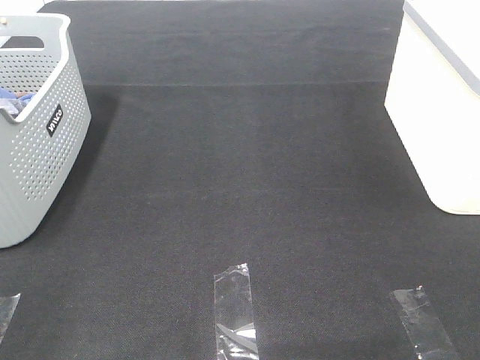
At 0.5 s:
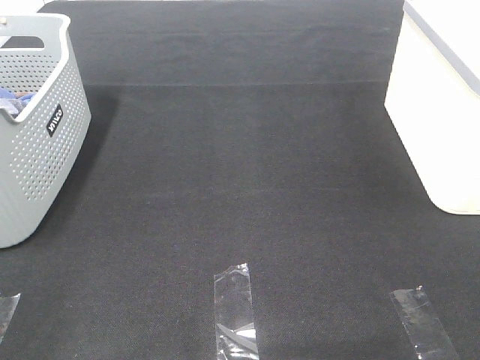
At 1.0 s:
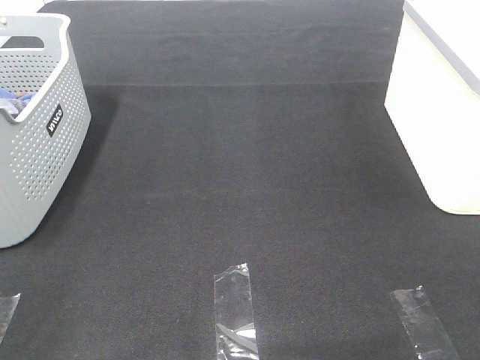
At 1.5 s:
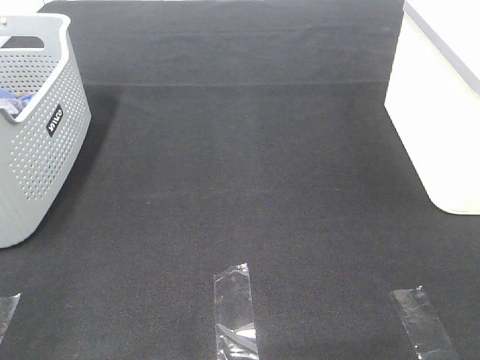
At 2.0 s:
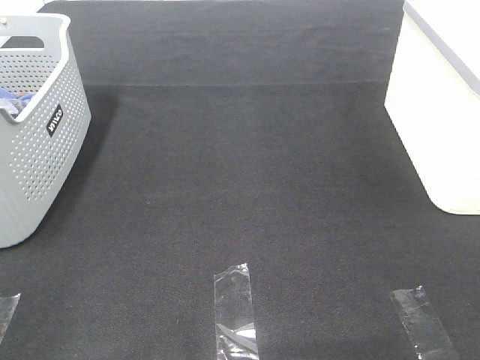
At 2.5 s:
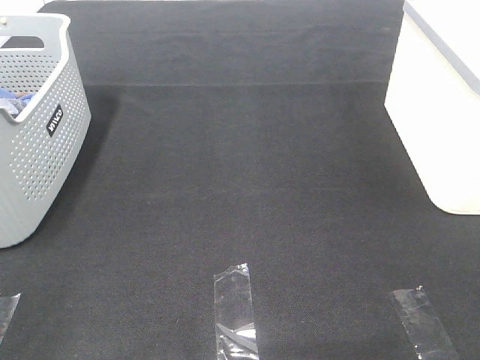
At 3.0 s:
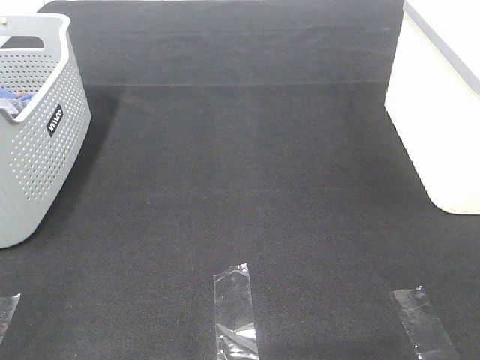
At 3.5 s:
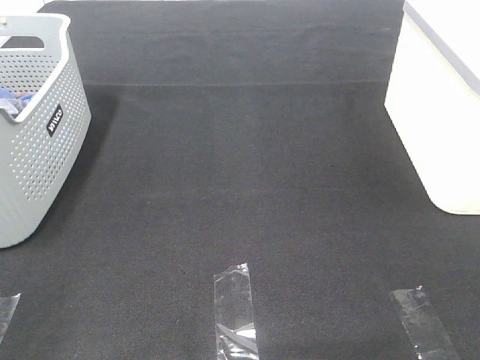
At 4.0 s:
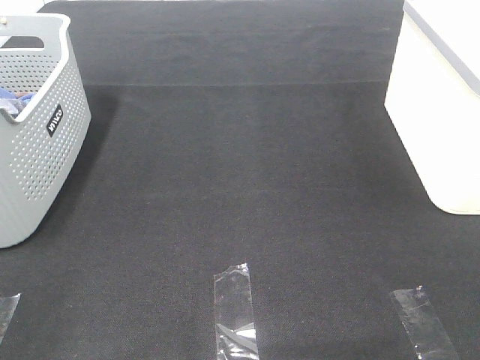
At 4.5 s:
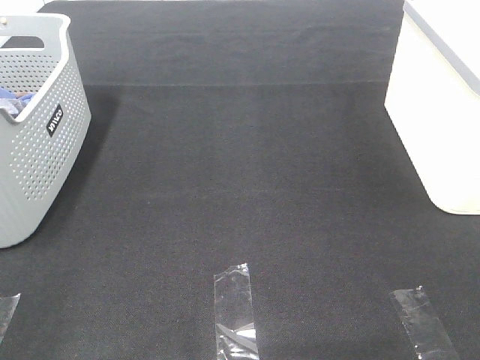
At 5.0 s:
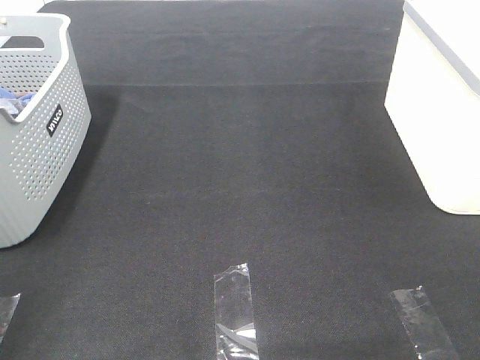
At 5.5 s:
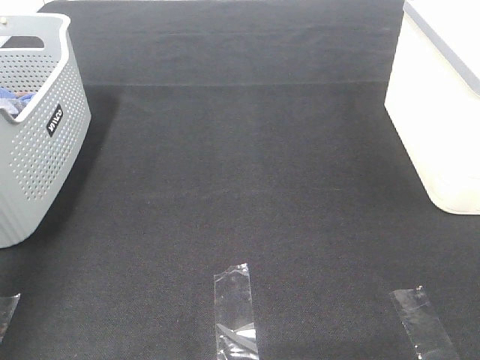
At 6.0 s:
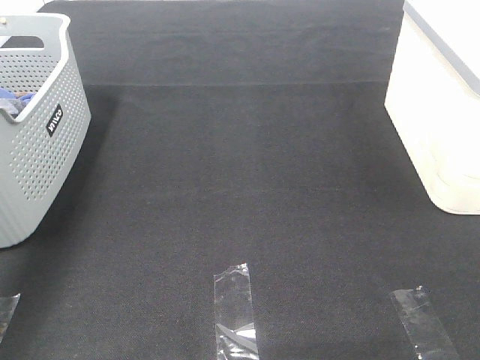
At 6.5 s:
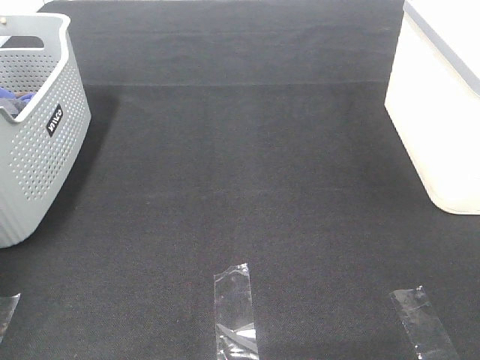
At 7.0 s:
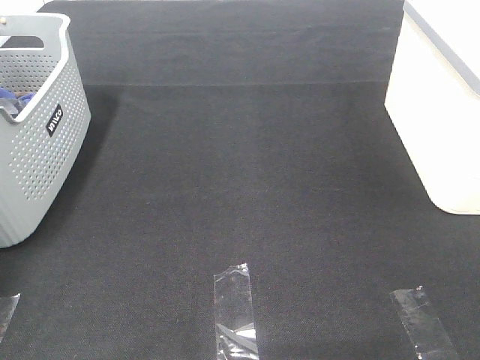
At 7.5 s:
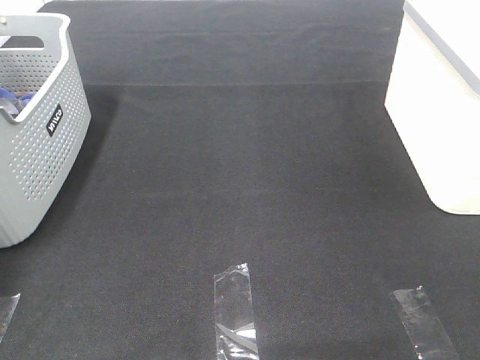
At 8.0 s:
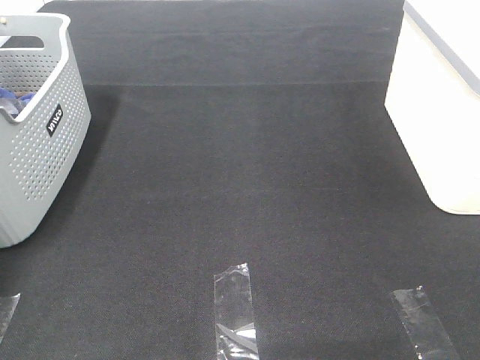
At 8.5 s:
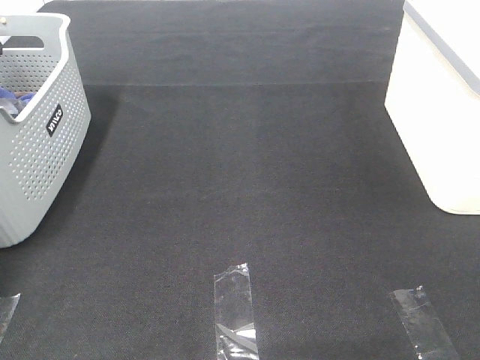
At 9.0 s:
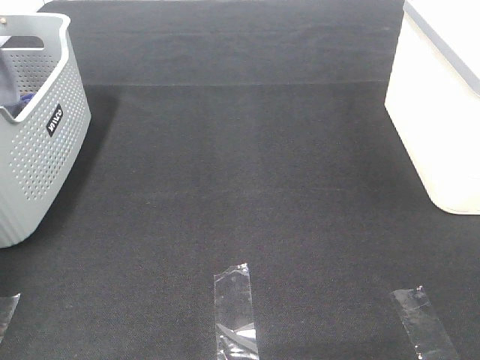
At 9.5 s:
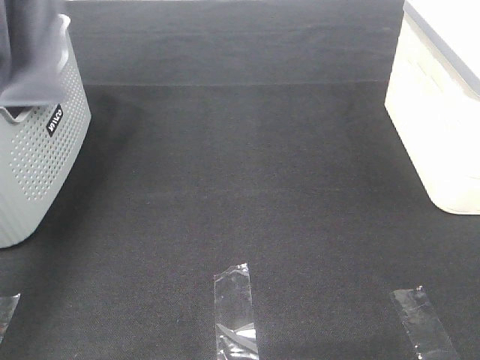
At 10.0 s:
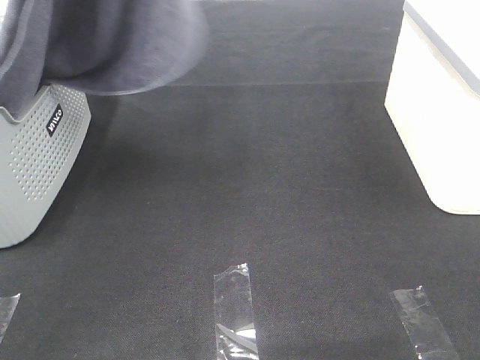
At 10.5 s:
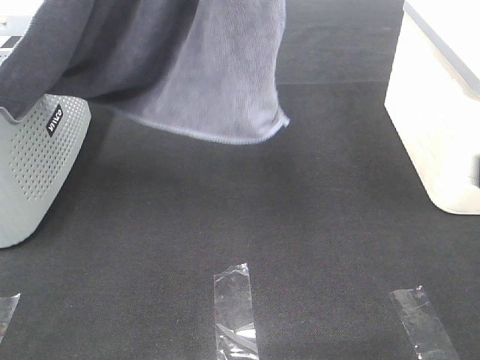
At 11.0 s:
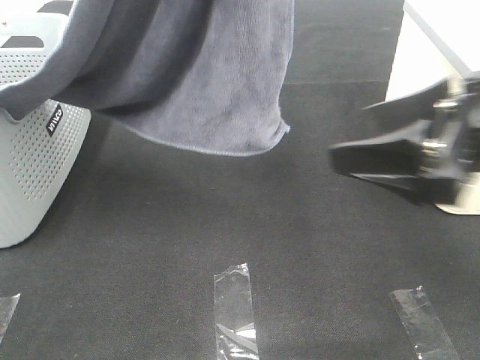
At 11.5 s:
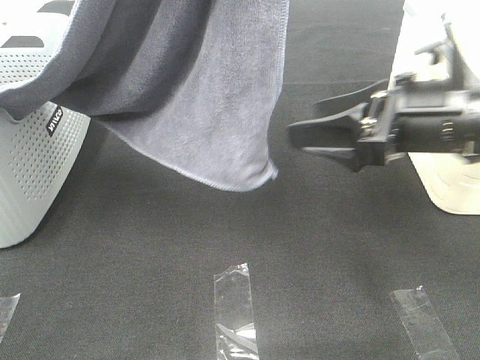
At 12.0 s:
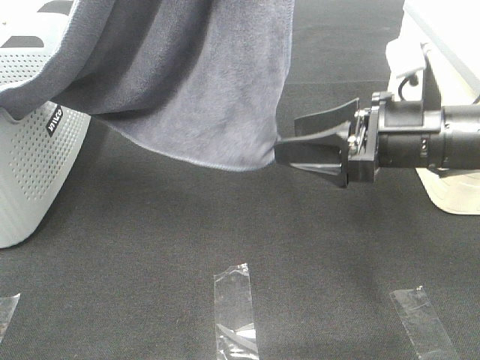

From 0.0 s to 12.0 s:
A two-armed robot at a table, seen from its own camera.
Task of the whole recording: Remove the towel and place it.
From 0.0 s to 4.0 s: The two grippers keep their place.
From 4.0 s to 6.0 s: The left gripper goes some 35 cm forward.
From 6.0 s to 8.0 s: The left gripper goes approximately 20 cm forward, downward and to the left.
From 8.0 s to 10.0 s: The left gripper shifts about 40 cm upward, to the right and backward, and closes its fingers.
From 10.0 s to 12.0 s: The left gripper moves to the right and backward, approximately 10 cm. Meanwhile the right gripper heads forward and downward, covering some 25 cm.

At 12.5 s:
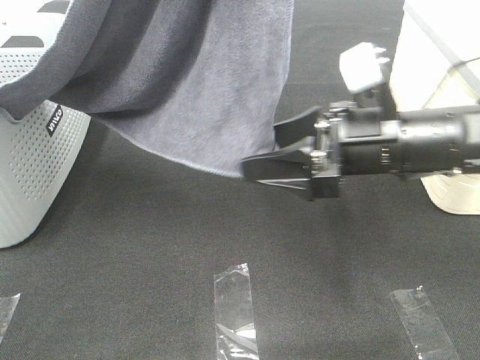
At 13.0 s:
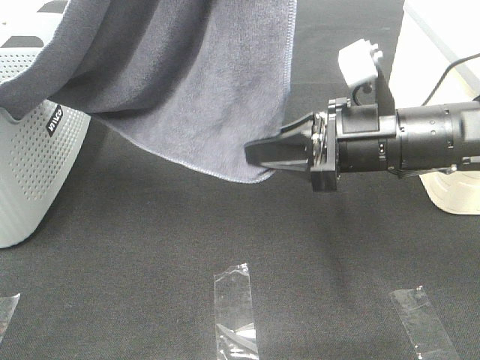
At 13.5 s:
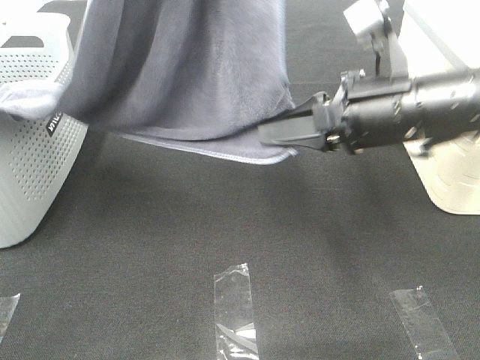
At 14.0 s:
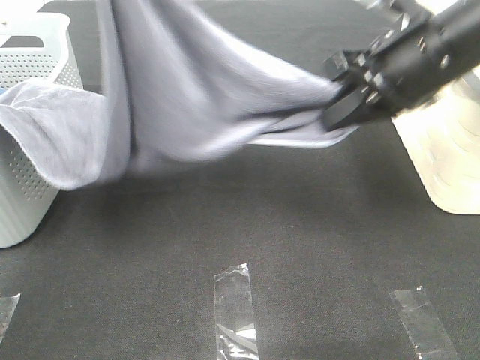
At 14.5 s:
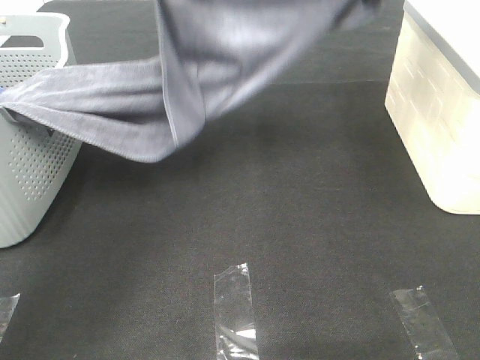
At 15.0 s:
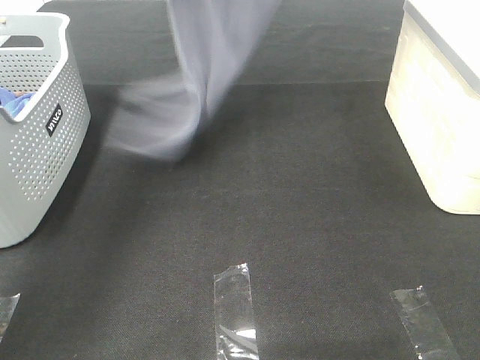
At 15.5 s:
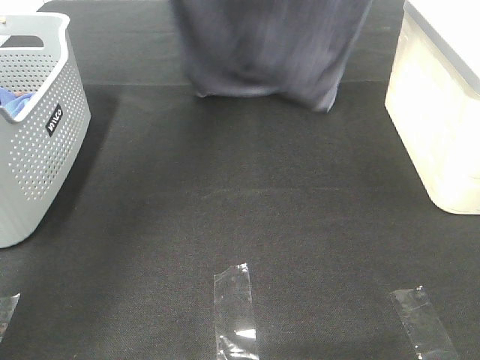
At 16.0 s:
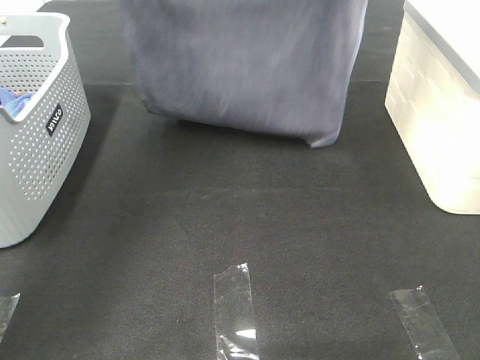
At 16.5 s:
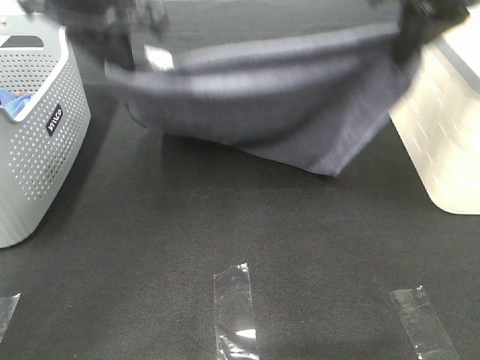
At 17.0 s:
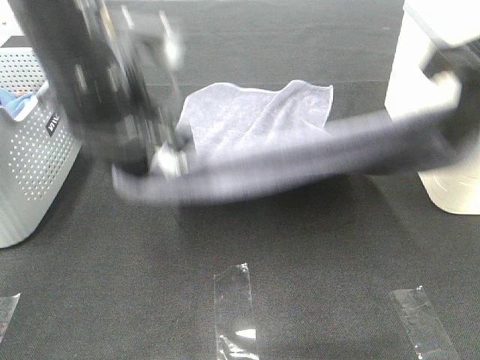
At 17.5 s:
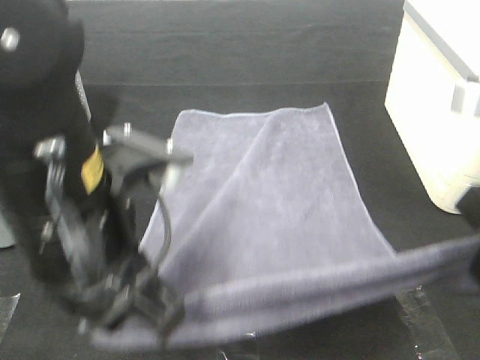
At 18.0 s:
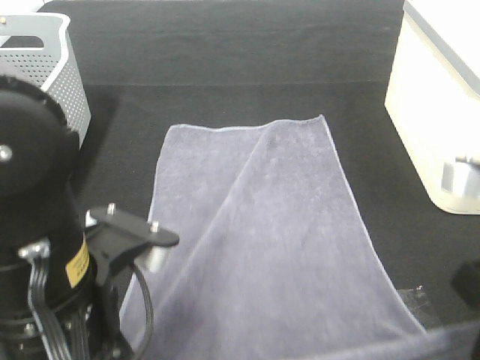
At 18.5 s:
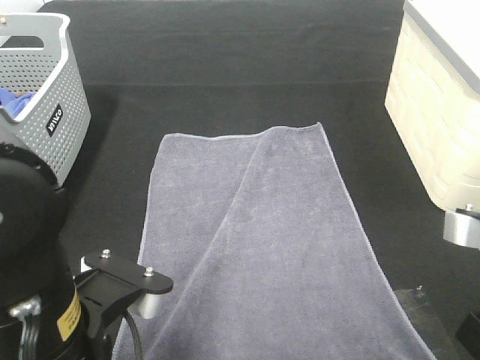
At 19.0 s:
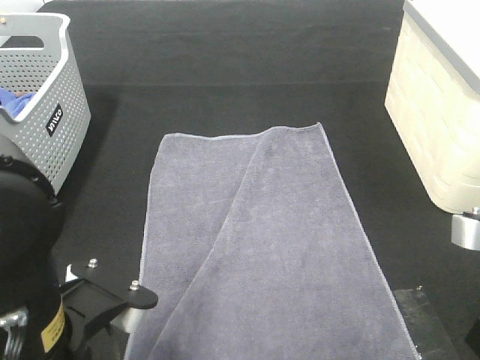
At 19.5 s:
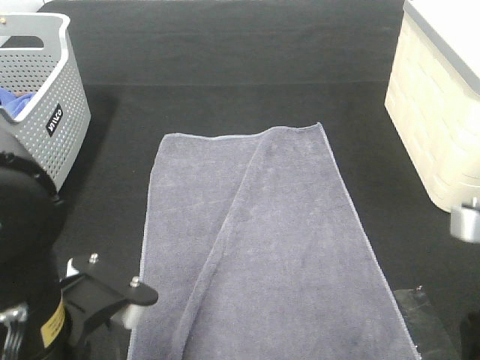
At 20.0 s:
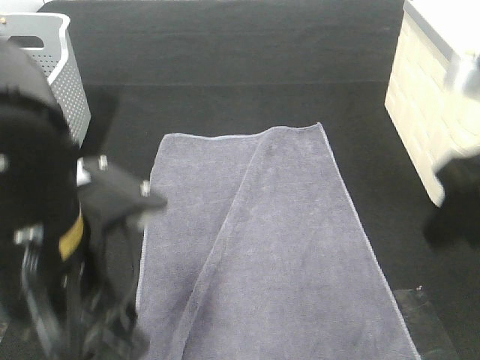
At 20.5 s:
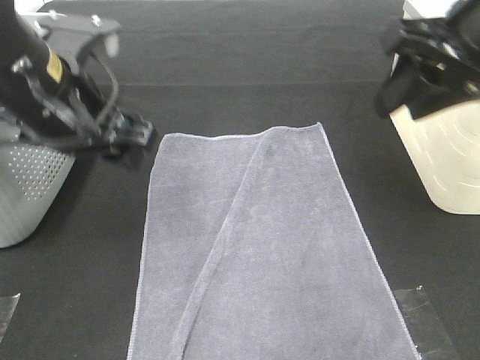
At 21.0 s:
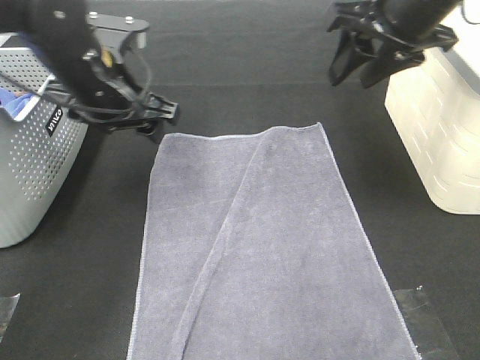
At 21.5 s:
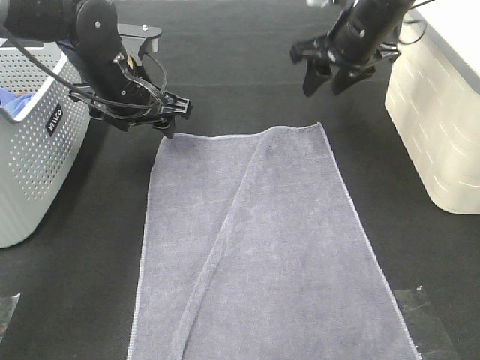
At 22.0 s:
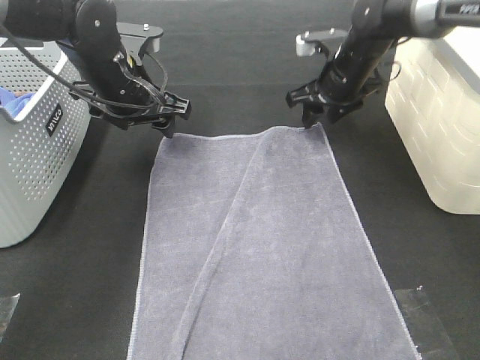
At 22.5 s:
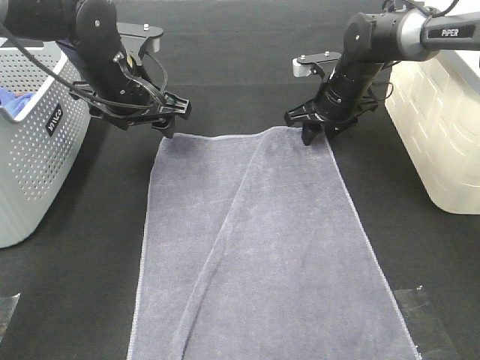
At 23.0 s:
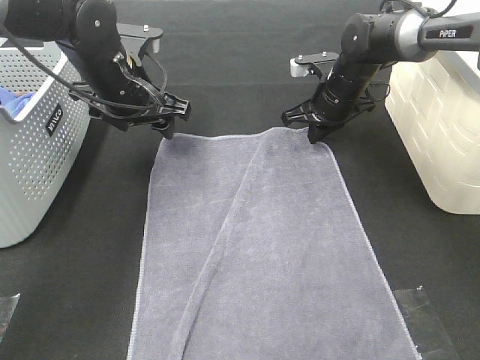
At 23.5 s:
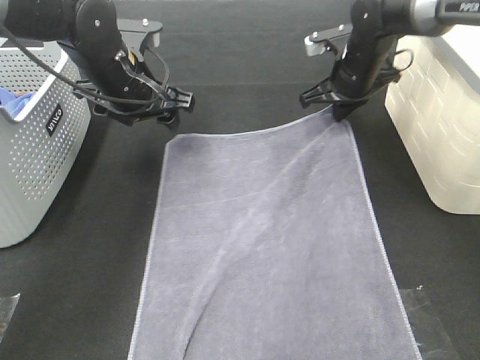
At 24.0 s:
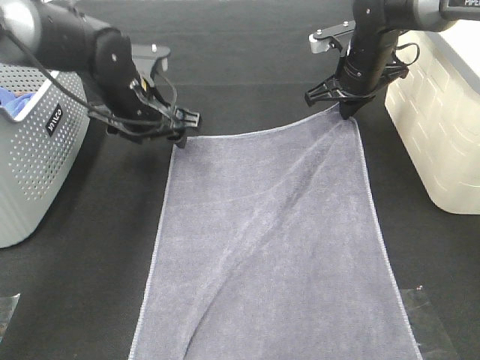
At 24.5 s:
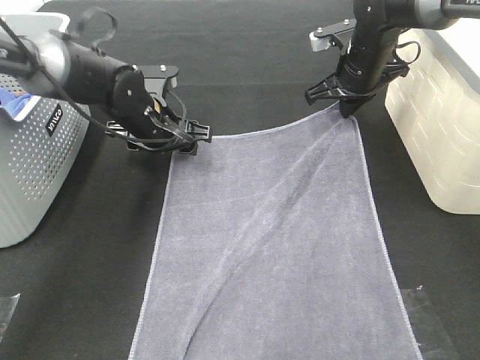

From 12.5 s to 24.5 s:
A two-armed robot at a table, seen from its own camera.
Task of the whole recording: Remove the towel and place it.
Step, from 12.5 s to 15.0 s: Left hand: spread the grey towel flat on the table.
Step, from 12.5 s to 15.0 s: Right hand: spread the grey towel flat on the table.
Step, from 15.5 s to 22.5 s: Left hand:adjust the gray towel.
Step, from 15.5 s to 22.5 s: Right hand:adjust the gray towel.
From 12.5 s to 14.5 s: The right gripper heads upward and forward, covering approximately 25 cm, and closes. The left gripper moves forward and downward, about 25 cm.
From 14.5 s to 16.5 s: Both grippers move backward, roughly 10 cm. The left gripper goes upward and returns, some 10 cm each way, while the right gripper travels upward and back again, approximately 15 cm each way.
From 16.5 s to 18.5 s: The grippers both shift backward and downward by roughly 25 cm.
From 18.5 s to 20.5 s: The left gripper moves forward, some 15 cm, and opens, while the right gripper moves forward and upward, roughly 20 cm, and opens up.
From 20.5 s to 22.5 s: The left gripper travels forward and downward by about 15 cm. Meanwhile the right gripper shifts some 30 cm forward and downward.
From 22.5 s to 24.5 s: The right gripper travels upward by about 5 cm, and closes; the left gripper moves downward, roughly 10 cm.

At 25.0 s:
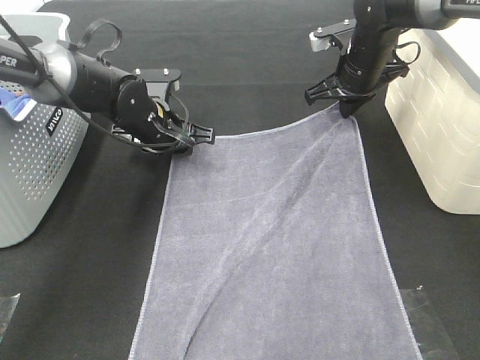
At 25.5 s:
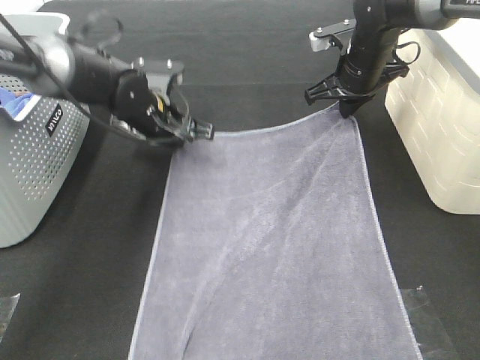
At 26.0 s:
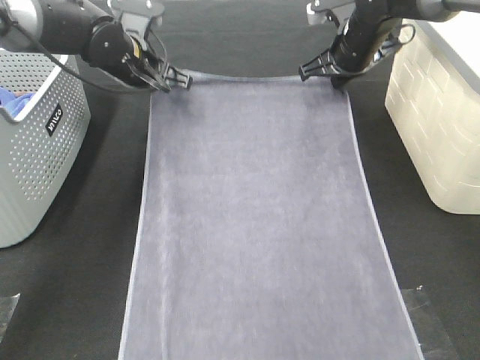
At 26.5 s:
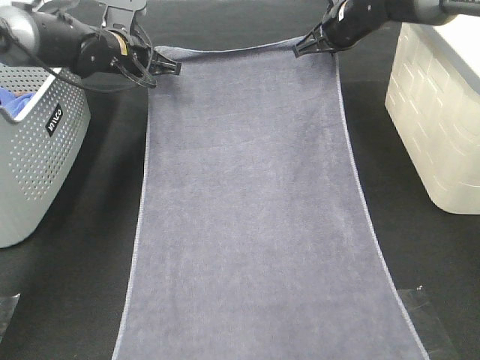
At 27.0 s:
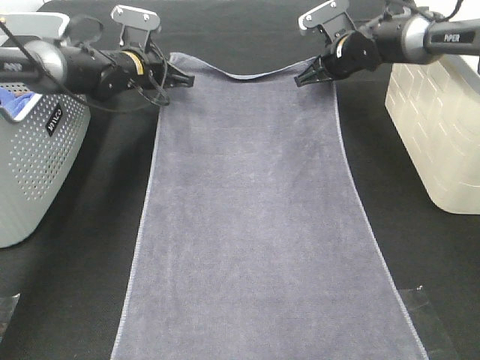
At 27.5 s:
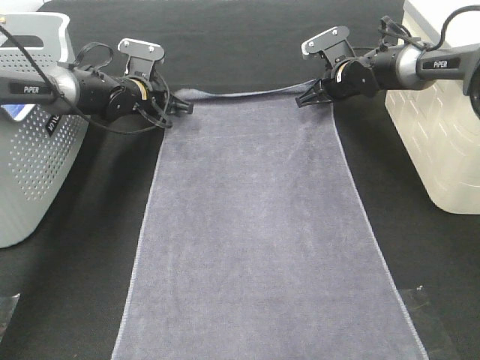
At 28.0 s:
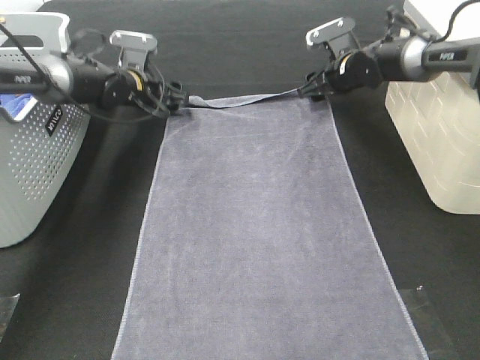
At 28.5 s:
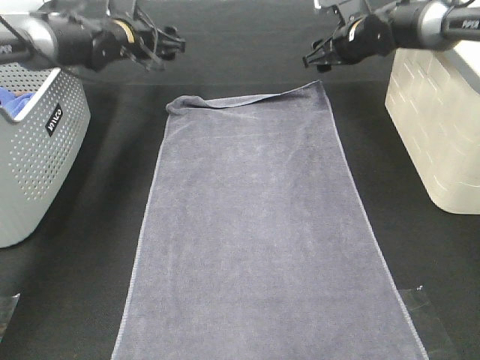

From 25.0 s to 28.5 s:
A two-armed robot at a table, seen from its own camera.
Task of the whole recording: Remove the towel and place it.
From 25.0 s to 27.0 s: The left gripper travels forward by about 10 cm, and closes its fingers. The right gripper goes about 5 cm forward.
From 27.0 s to 28.5 s: The left gripper goes about 5 cm upward, and opens. The right gripper opens up.
